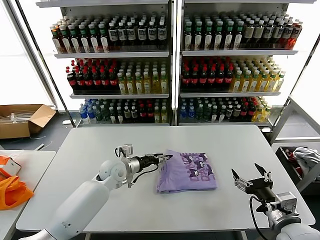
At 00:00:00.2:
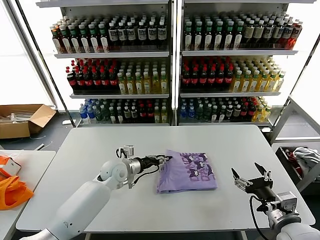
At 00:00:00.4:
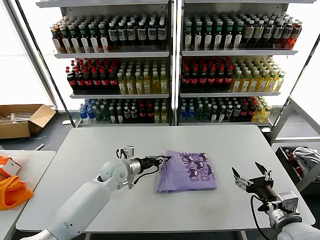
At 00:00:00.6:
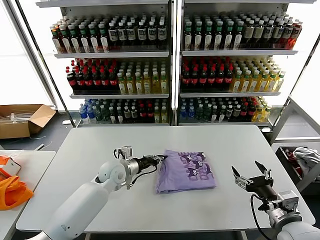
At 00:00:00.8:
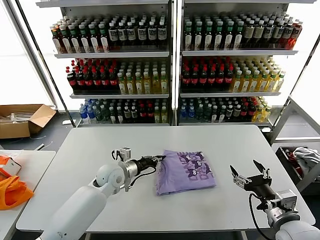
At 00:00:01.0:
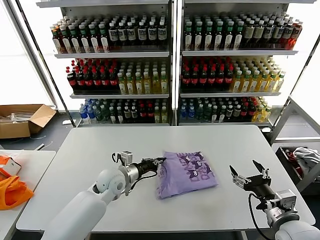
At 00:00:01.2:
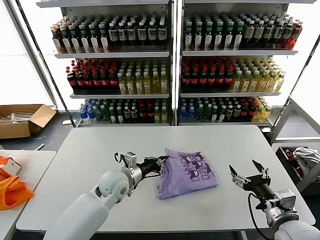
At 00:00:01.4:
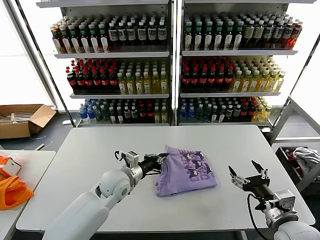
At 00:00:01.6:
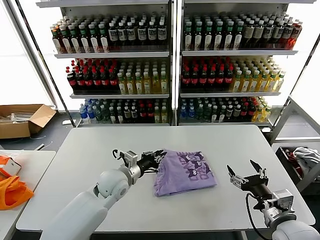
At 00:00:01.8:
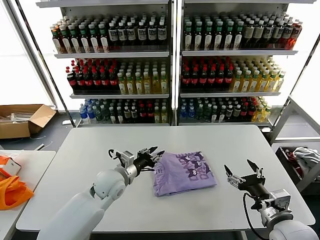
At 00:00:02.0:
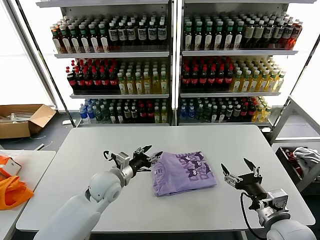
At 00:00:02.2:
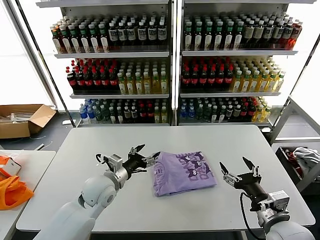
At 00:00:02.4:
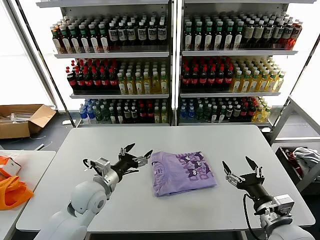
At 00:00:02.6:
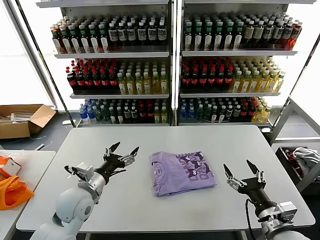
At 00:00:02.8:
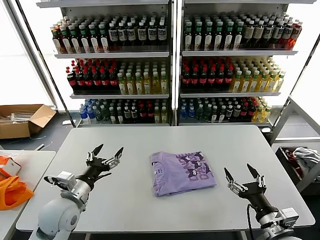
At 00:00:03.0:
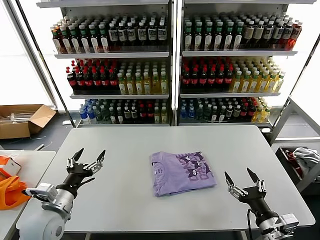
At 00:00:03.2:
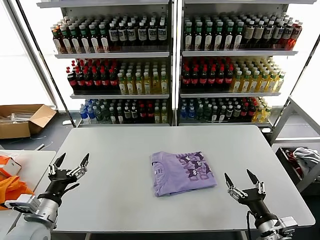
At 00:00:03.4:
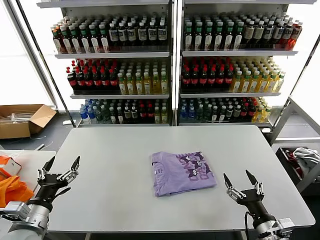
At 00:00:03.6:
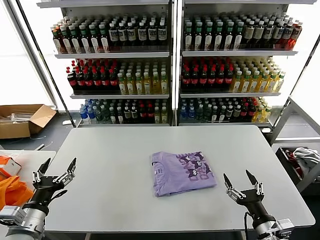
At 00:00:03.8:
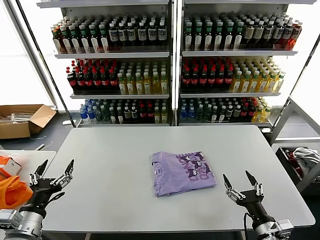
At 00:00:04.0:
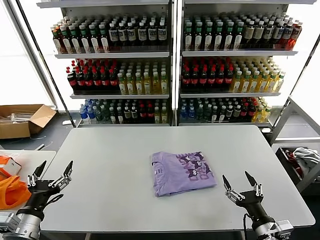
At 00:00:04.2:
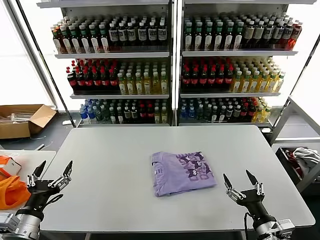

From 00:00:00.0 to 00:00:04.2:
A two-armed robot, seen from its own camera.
Task of the whole recording: fold and organize the clothes.
Step, from 00:00:00.0 to 00:00:02.0: Drag the clothes to the center of the table.
From 00:00:00.0 to 00:00:01.4: The left gripper shifts some 5 cm backward, and closes up.
From 00:00:01.4 to 00:00:02.8: The left gripper heads to the left and backward, covering roughly 15 cm, and opens its fingers.
From 00:00:02.8 to 00:00:04.2: The left gripper shifts roughly 15 cm backward and to the left.
